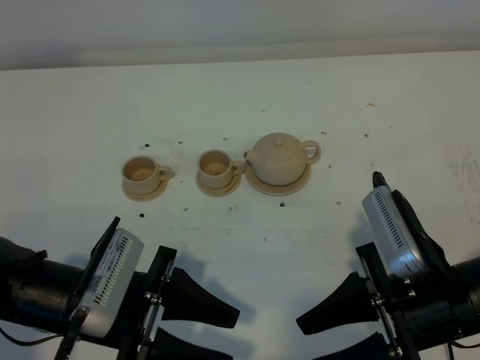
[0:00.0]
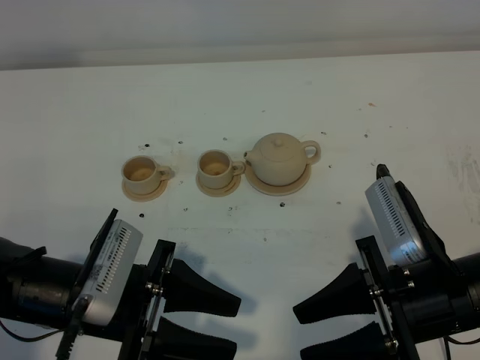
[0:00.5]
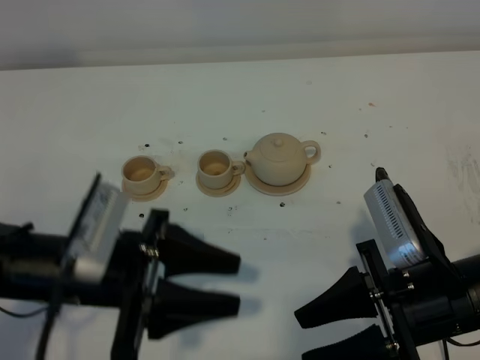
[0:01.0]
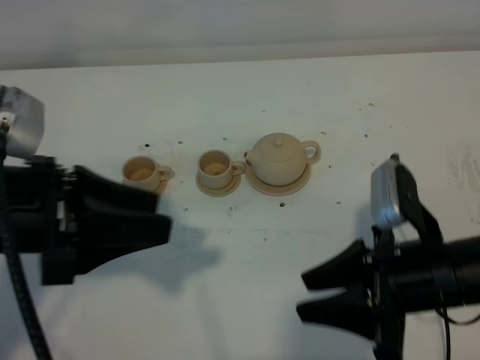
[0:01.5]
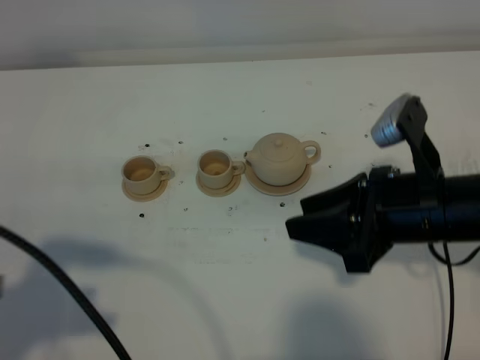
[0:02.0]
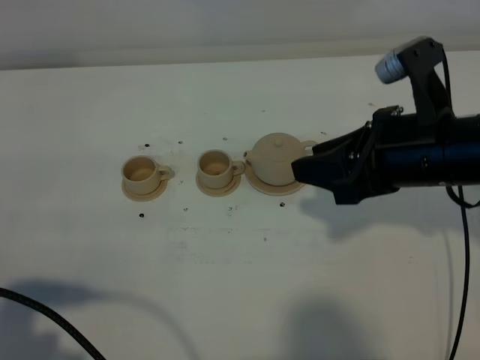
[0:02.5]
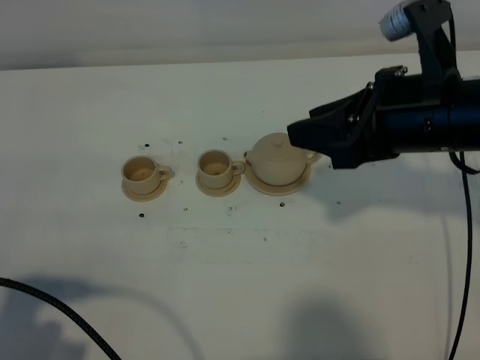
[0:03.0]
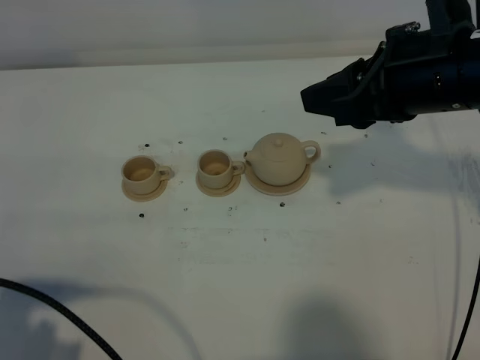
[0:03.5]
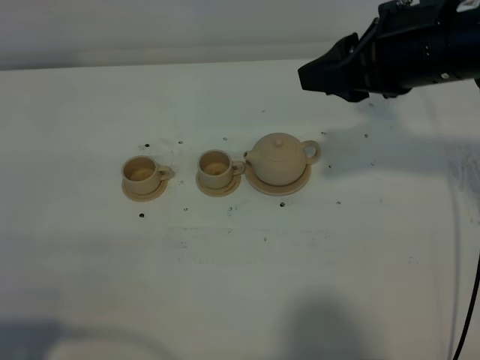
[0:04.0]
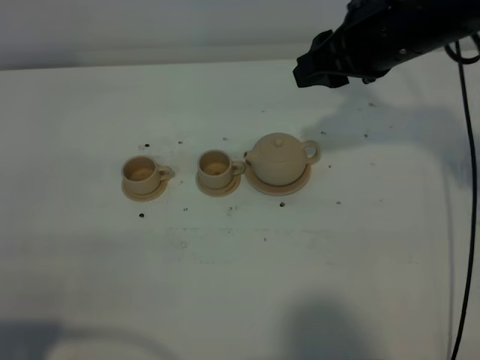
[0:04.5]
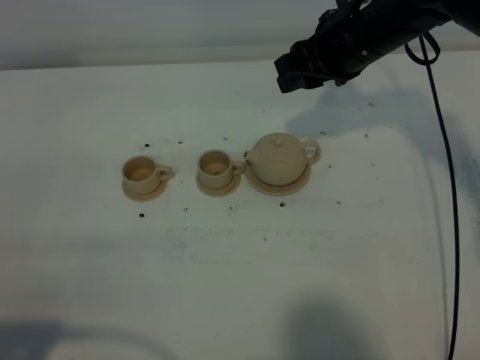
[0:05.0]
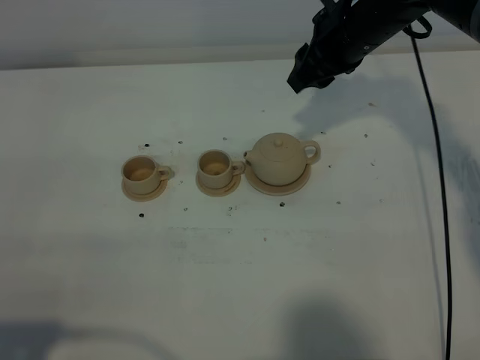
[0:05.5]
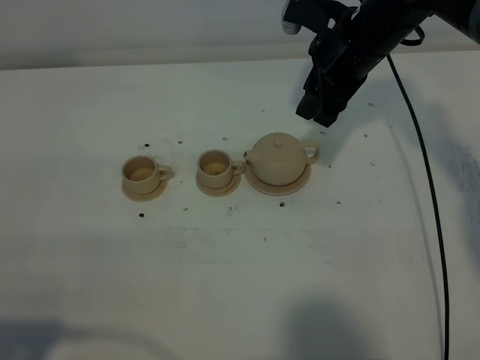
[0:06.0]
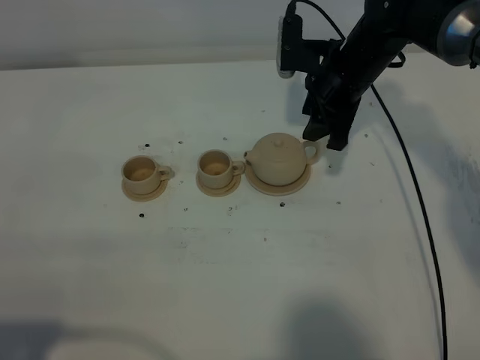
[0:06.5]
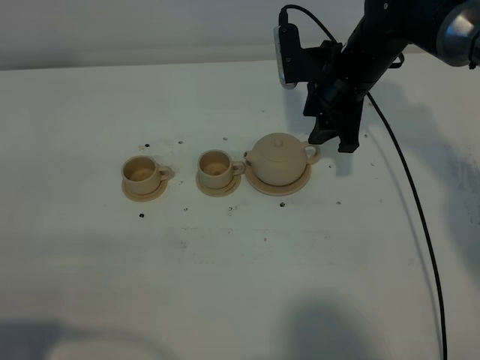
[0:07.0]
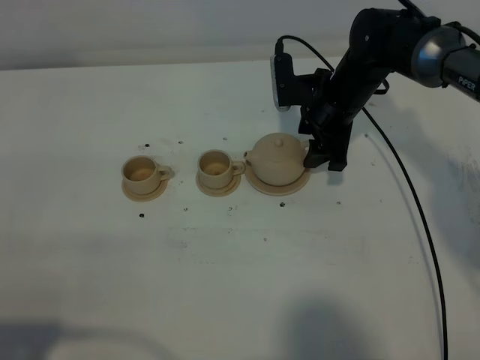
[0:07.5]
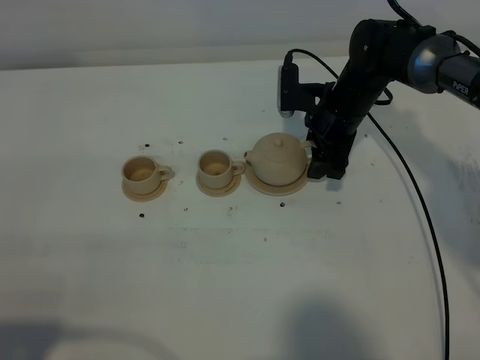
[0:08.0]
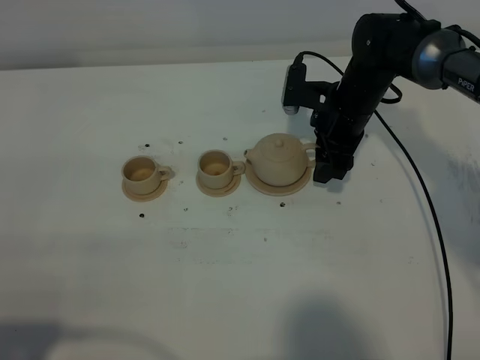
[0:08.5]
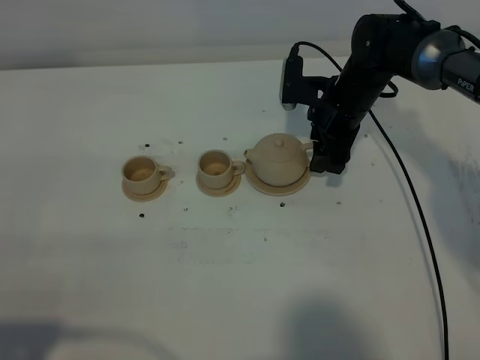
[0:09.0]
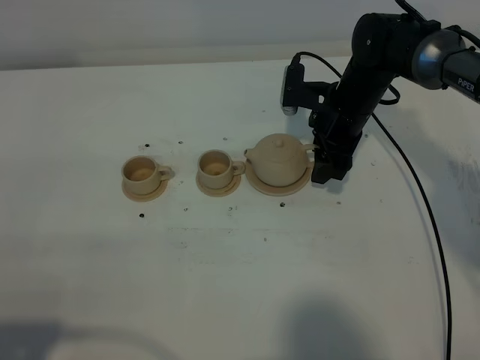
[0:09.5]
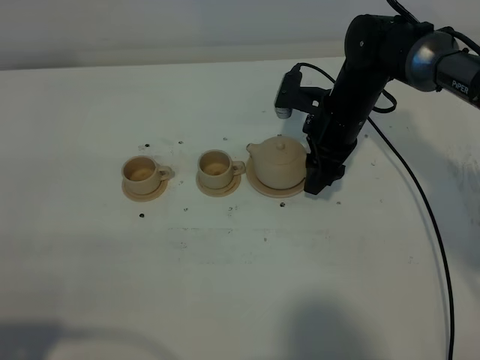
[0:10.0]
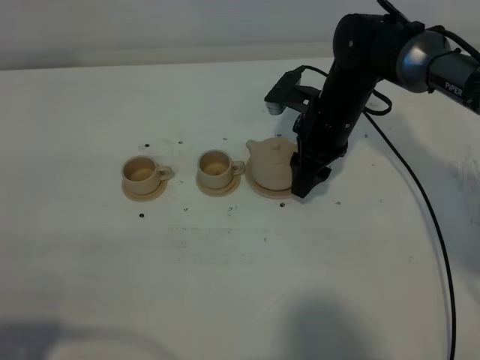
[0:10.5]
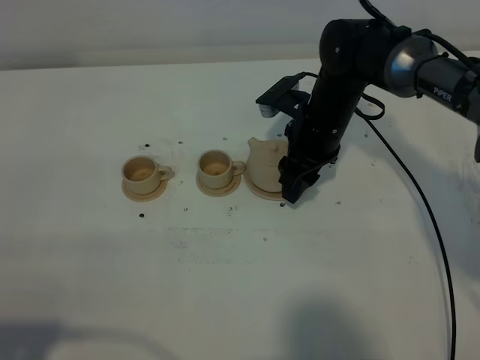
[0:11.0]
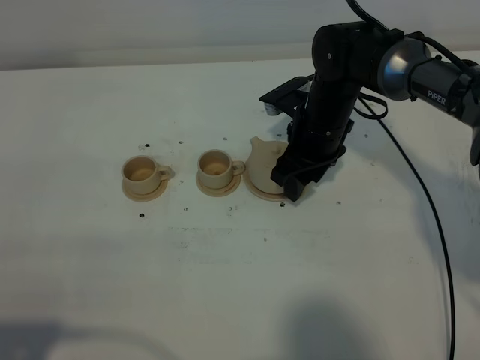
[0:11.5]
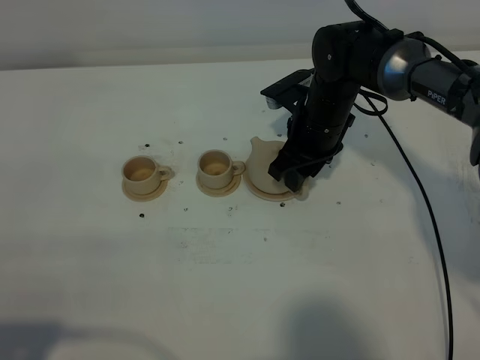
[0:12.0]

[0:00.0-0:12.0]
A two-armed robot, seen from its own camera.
Task of the whole recording: grasp the brown teapot and pour the tea into the two brown teacups one by one, put the brown teapot back in its original place.
0:00.0 to 0:02.0: The left gripper heads upward, to the left and backward, covering some 20 cm; the right gripper heads forward, covering some 5 cm.
0:02.0 to 0:04.0: The right gripper is displaced upward and forward by roughly 15 cm. Meanwhile the left gripper moves backward and downward, roughly 10 cm.
0:04.0 to 0:06.0: The right gripper heads forward and downward, covering roughly 15 cm.
0:06.0 to 0:08.0: The right gripper shifts approximately 10 cm downward.
0:08.0 to 0:10.0: The grippers move only a little.

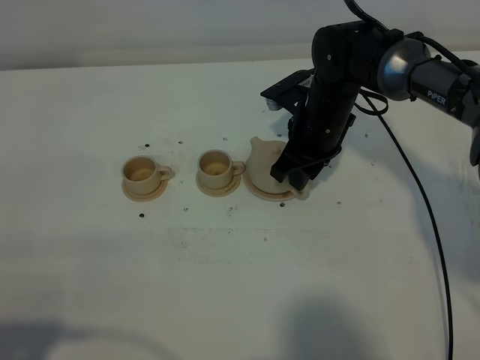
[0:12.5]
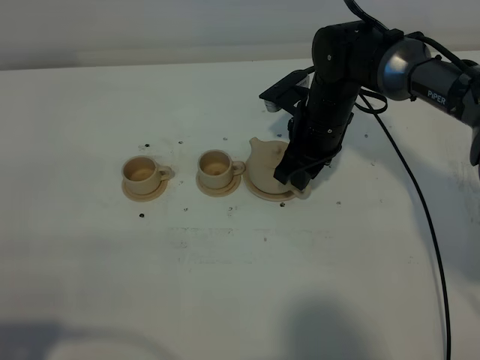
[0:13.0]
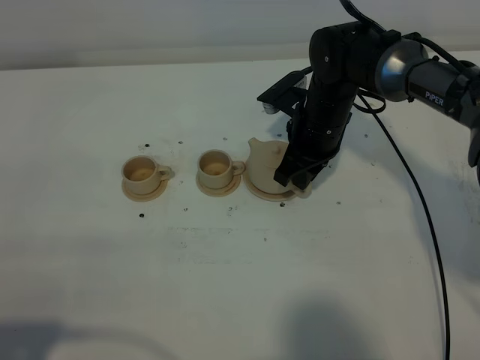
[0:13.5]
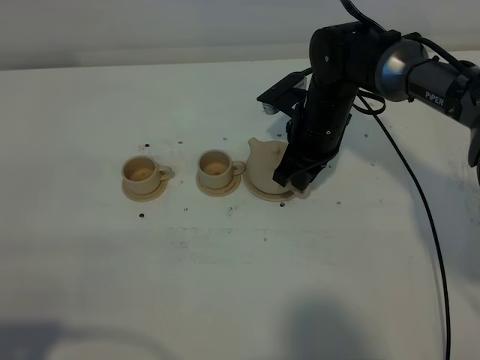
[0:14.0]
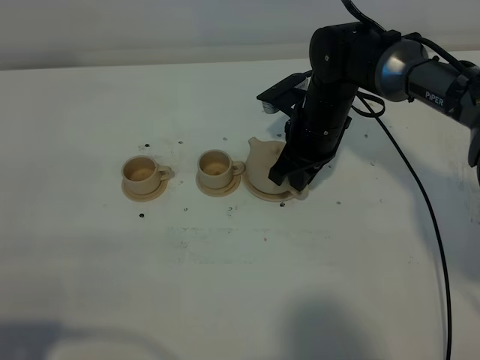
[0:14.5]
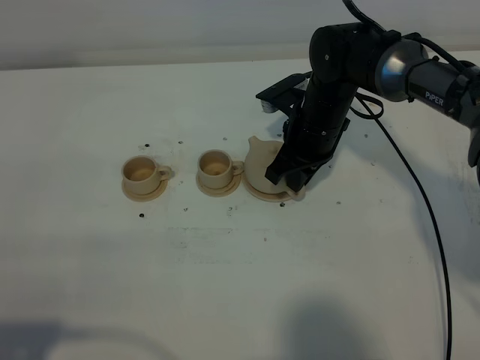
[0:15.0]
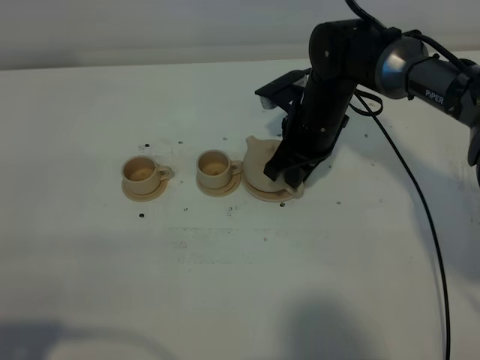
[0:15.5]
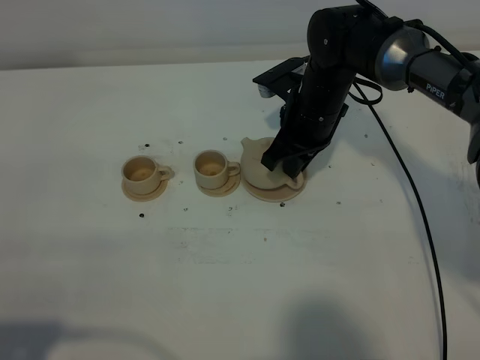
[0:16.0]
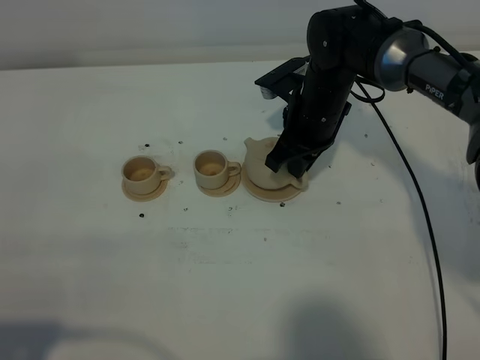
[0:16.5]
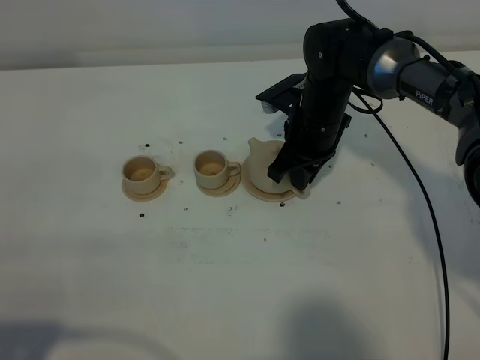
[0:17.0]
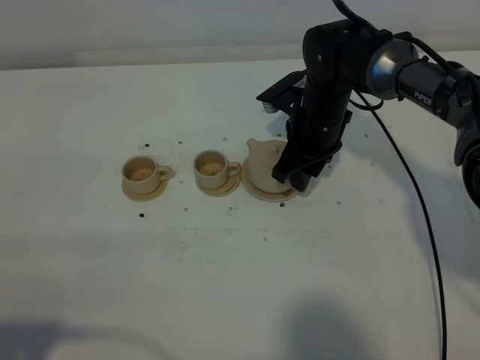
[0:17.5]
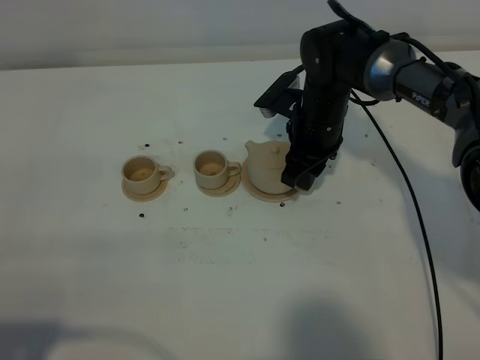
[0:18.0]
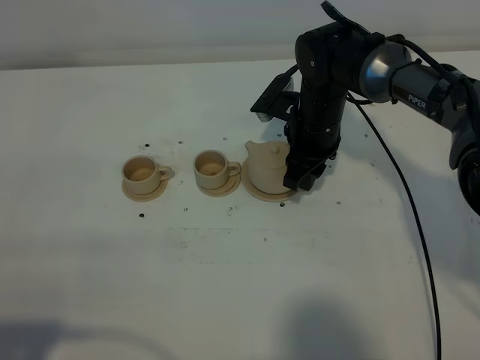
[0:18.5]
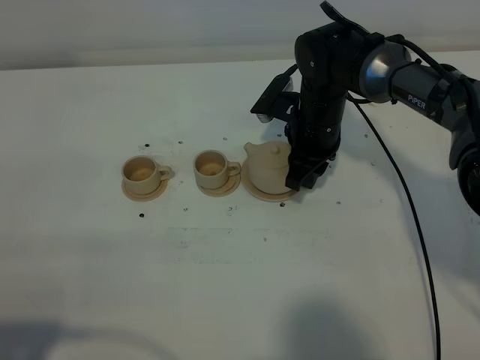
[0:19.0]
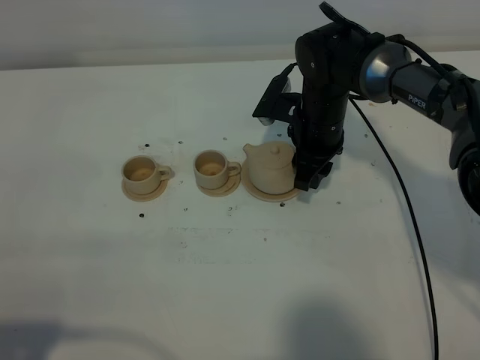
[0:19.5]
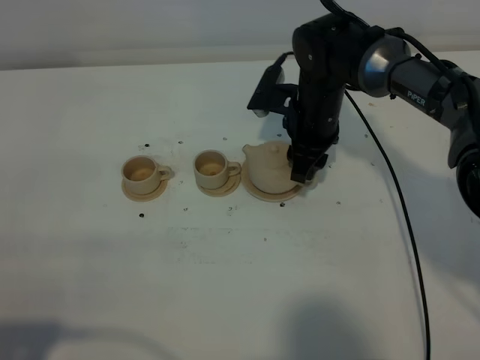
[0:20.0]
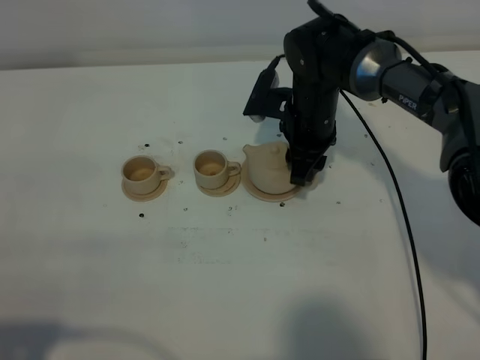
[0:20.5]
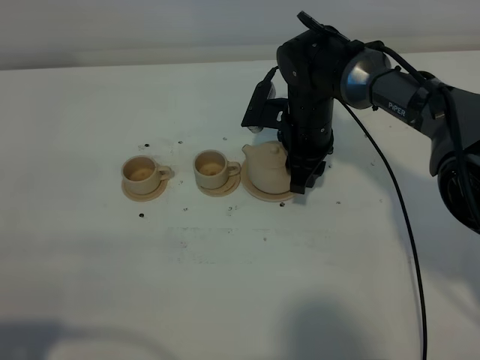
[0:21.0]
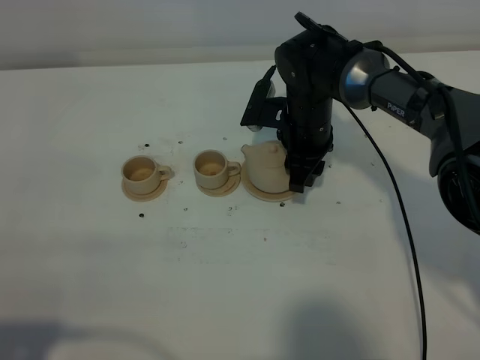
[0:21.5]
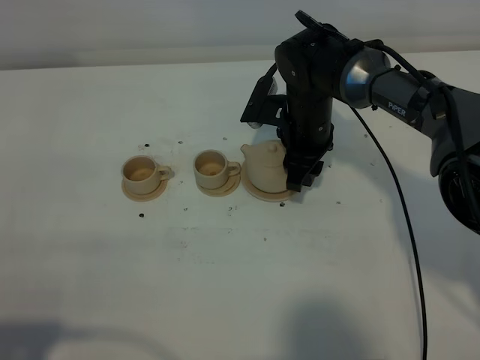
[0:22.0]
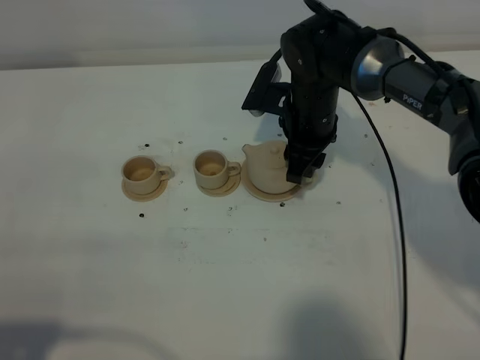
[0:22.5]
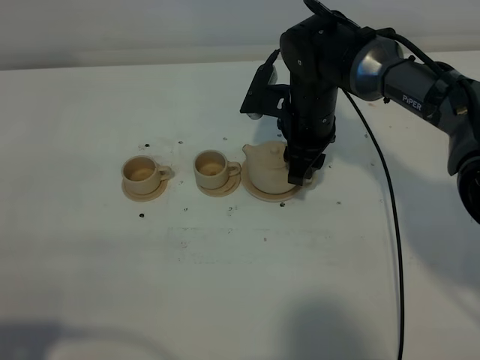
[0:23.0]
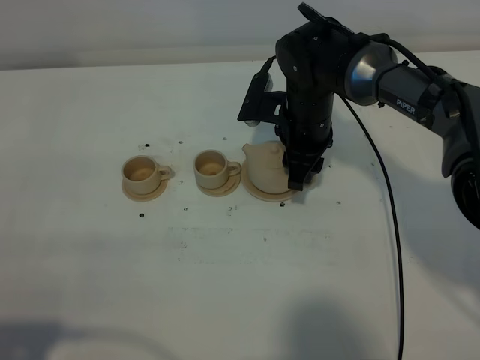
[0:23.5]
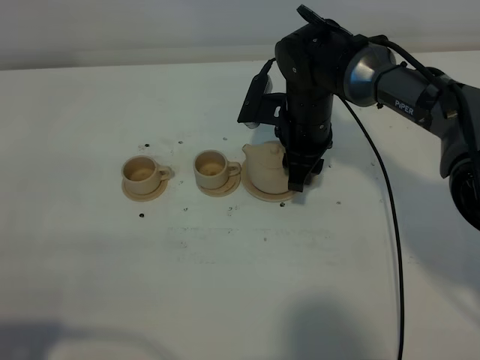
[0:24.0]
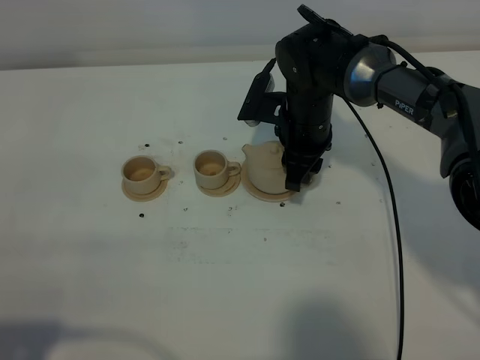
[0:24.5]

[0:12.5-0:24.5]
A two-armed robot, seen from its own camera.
Task of the whole recording: grasp the brown teapot and pour the tea into the two brown teacups one by one, put the brown teapot back in its original place.
0:12.5 to 0:14.5: The right gripper closes its fingers.
0:14.5 to 0:16.5: There are only small adjustments of the grippers.
0:16.5 to 0:18.5: The right gripper opens up.
0:18.5 to 0:24.5: The grippers make only small movements.

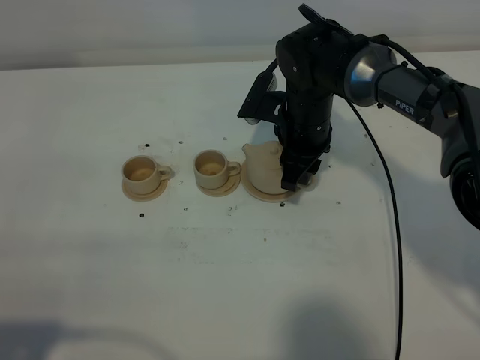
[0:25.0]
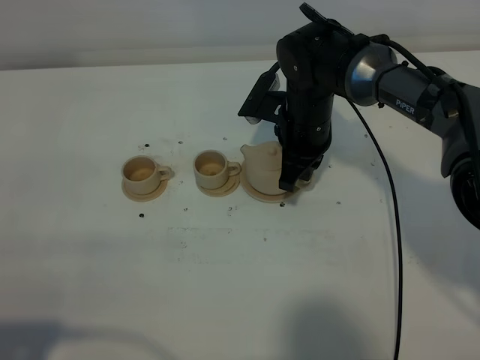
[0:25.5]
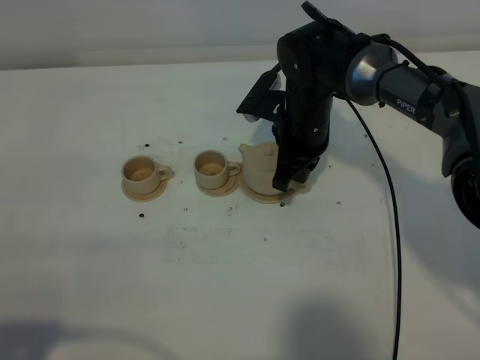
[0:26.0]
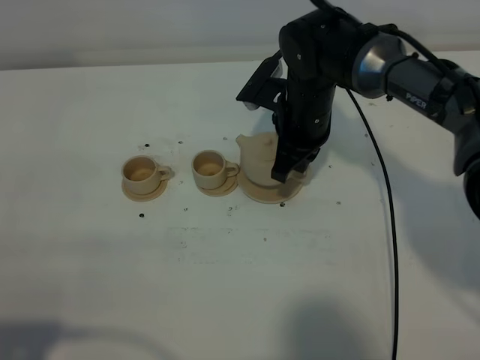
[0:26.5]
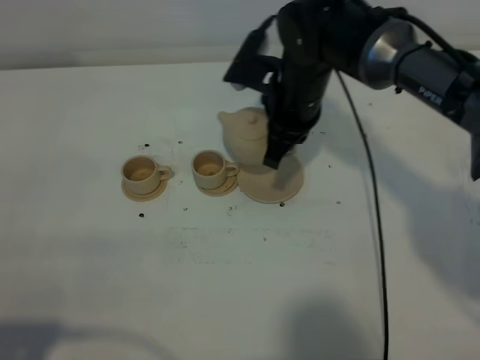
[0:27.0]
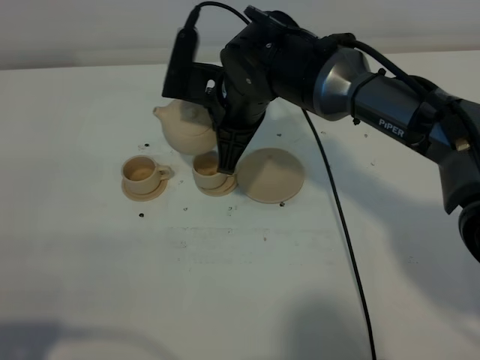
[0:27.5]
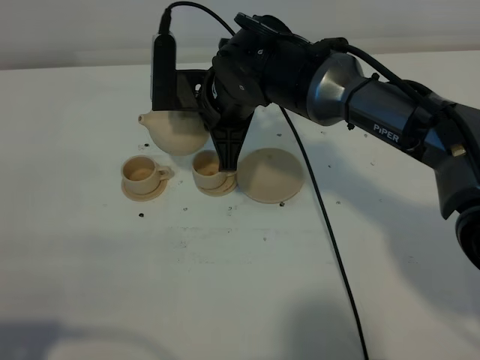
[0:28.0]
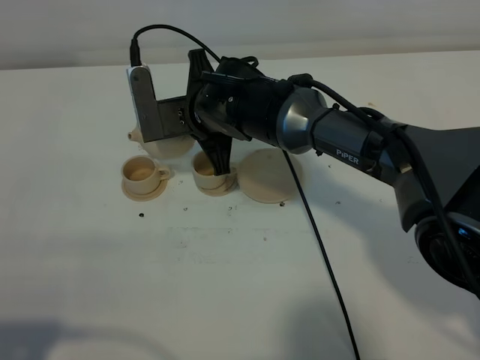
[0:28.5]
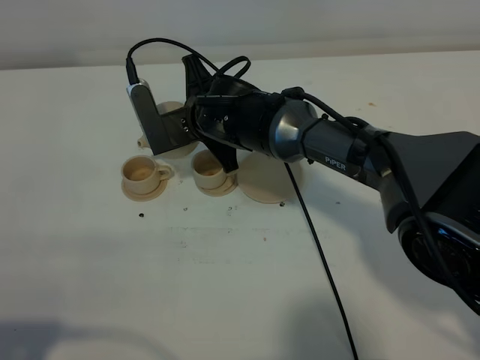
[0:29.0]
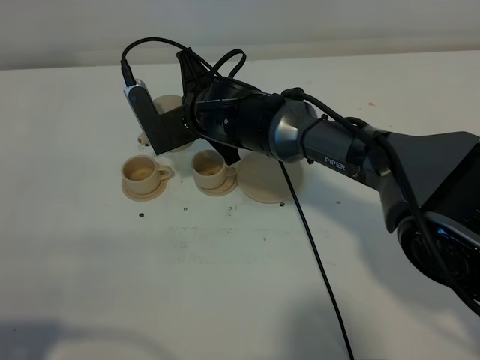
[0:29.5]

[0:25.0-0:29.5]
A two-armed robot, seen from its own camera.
Task of the whole recording: grasp the brown teapot and pour the tea into the two brown teacups one by one, put the brown teapot back in its original place.
0:25.0 to 0:27.0: The right gripper shifts about 5 cm upward, and closes.
0:27.0 to 0:29.5: The right gripper goes about 10 cm to the left.
